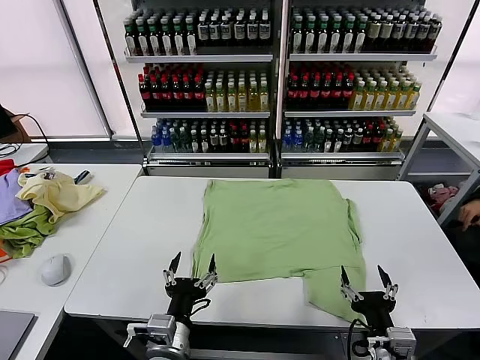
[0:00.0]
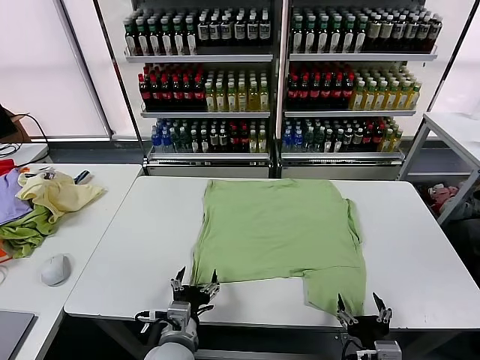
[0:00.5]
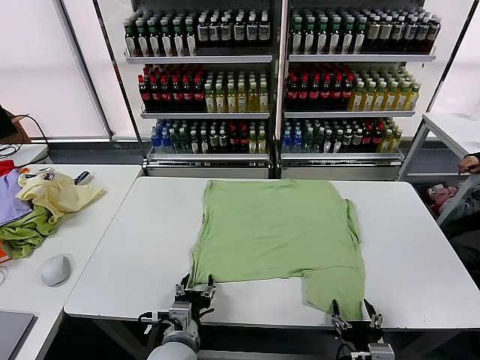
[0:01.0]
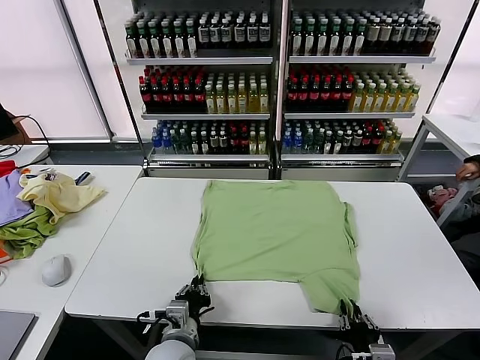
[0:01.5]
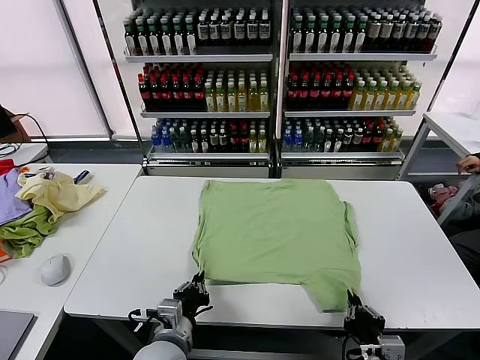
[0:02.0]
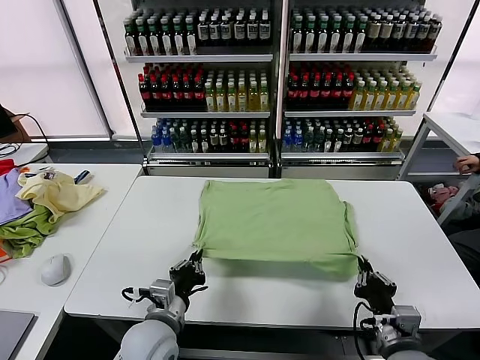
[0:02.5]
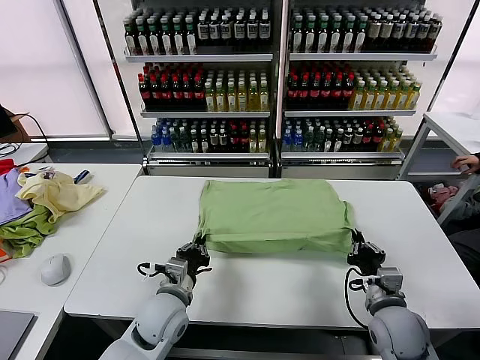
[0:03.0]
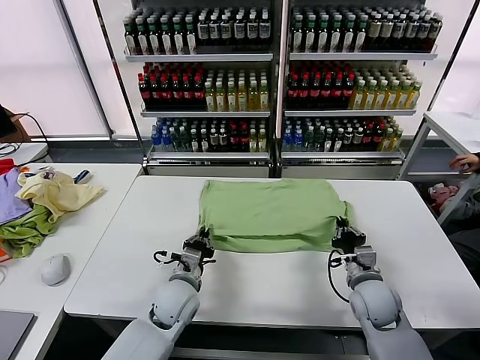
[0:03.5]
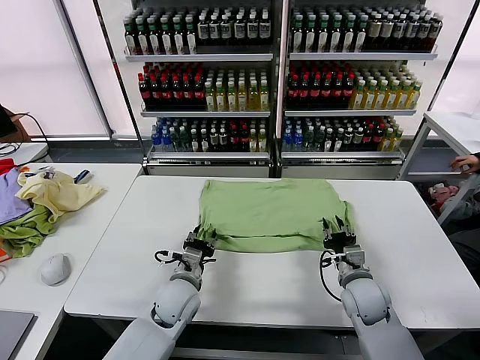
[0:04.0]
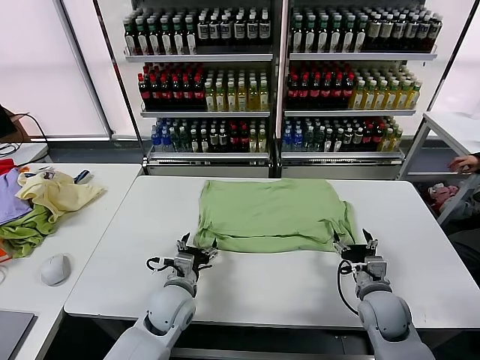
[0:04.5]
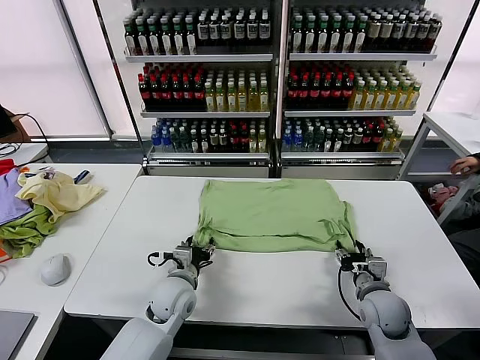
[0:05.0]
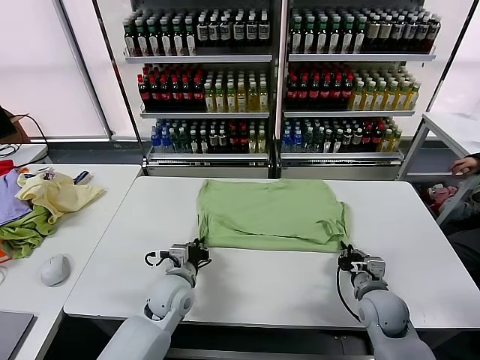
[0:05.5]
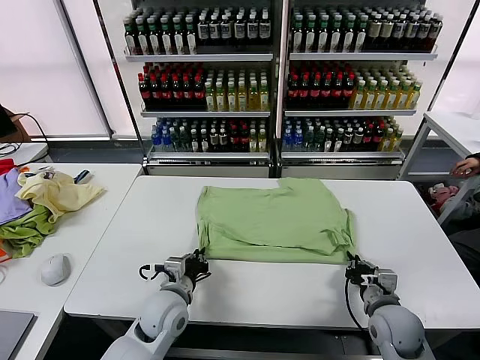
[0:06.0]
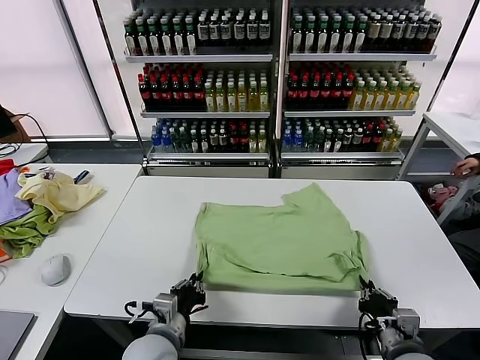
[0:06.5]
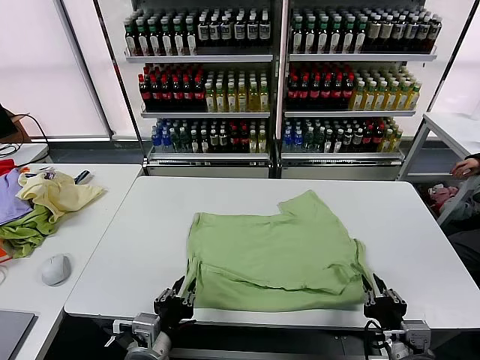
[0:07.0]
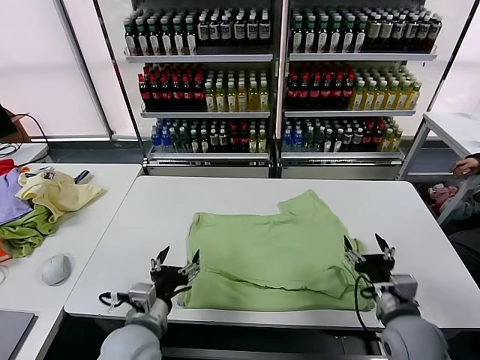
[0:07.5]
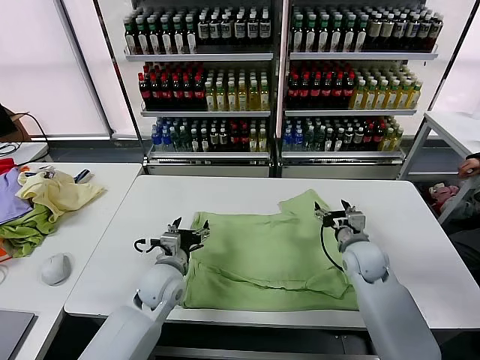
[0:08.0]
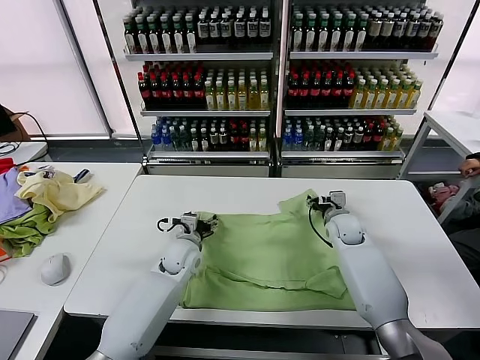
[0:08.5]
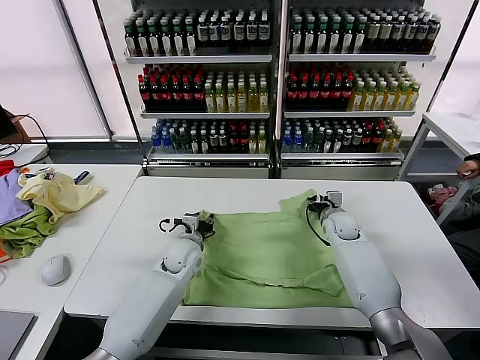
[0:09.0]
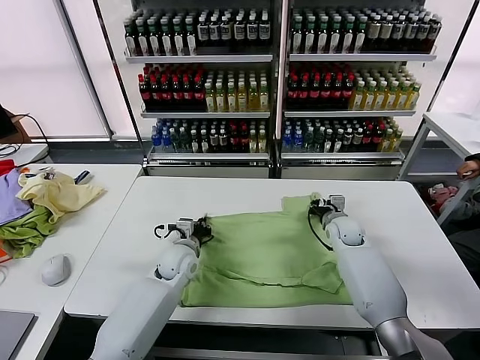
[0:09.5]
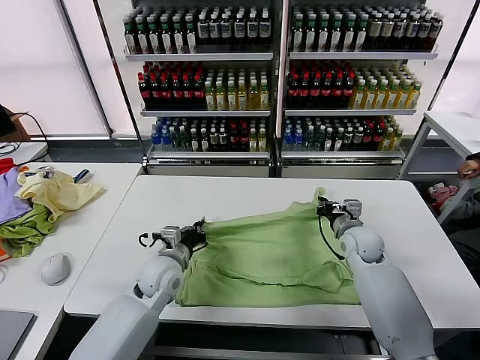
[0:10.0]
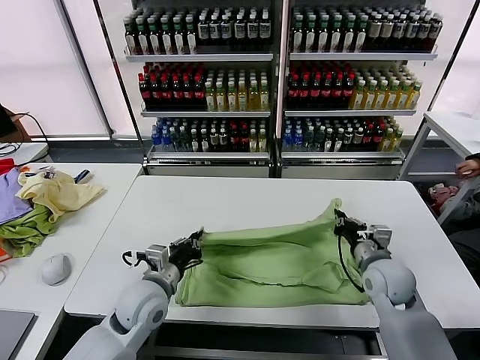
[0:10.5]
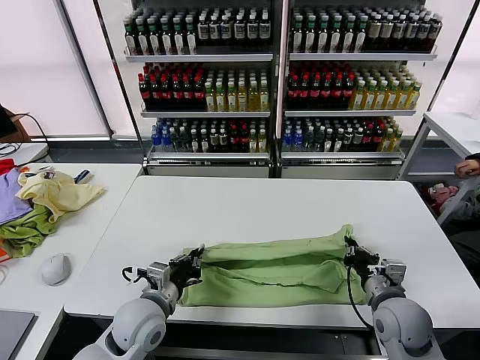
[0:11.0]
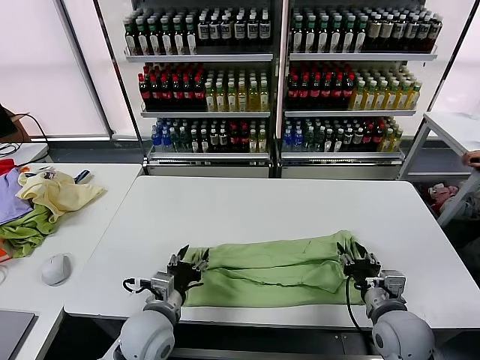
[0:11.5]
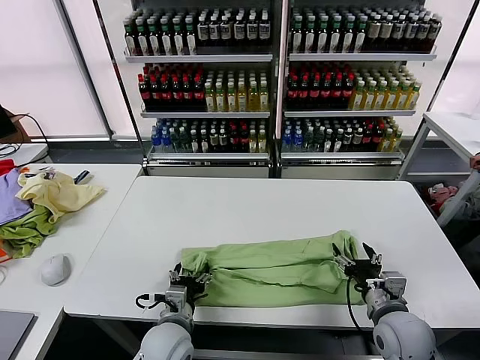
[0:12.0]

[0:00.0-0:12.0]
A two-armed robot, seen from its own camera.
Task of the whole recording: fold and organize the clothes.
Step, 0:00.0 to 0:01.5: use both grippers simultaneously to clamp the lower edge of the clothing fabric.
Step, 0:02.0 to 0:04.0: use both grippers to drag the lower edge of the fabric forward and fold it over the upper edge.
Step, 0:04.5 to 0:07.0: Drag the clothes downward with both gripper.
Step, 0:07.5 to 0:09.5: use both grippers simultaneously to clamp the upper edge of the clothing fabric.
Step, 0:10.0 to 0:11.0: use both grippers to drag the upper edge of the fabric backward and fold it over the lower edge.
0:02.0 to 0:04.0: The two grippers go roughly 15 cm forward. The left gripper opens. Meanwhile the right gripper opens its fingers.
0:04.0 to 0:06.0: The left gripper closes its fingers; the right gripper travels backward by some 10 cm, and closes up.
0:06.0 to 0:08.0: The right gripper goes roughly 20 cm forward, and opens its fingers. Meanwhile the left gripper reaches roughly 15 cm backward, then returns, and opens up.
0:08.0 to 0:10.0: The right gripper reaches about 10 cm forward, then returns, and closes up. Meanwhile the left gripper moves some 10 cm forward and comes back, and closes.
0:10.0 to 0:12.0: The two grippers go roughly 15 cm backward. The left gripper opens its fingers. Meanwhile the right gripper opens.

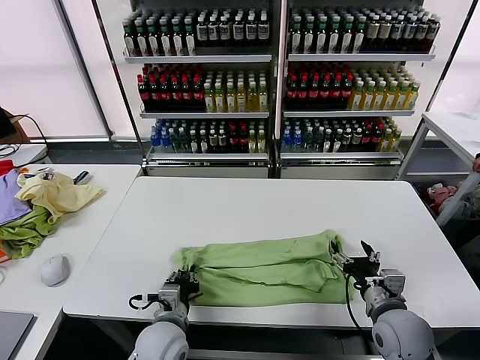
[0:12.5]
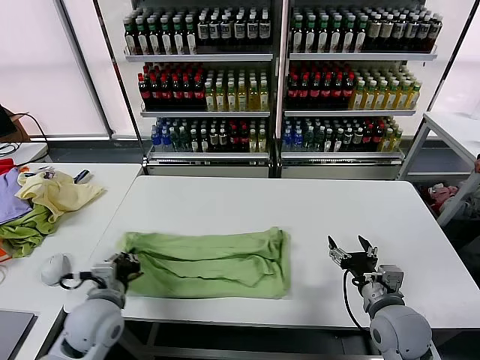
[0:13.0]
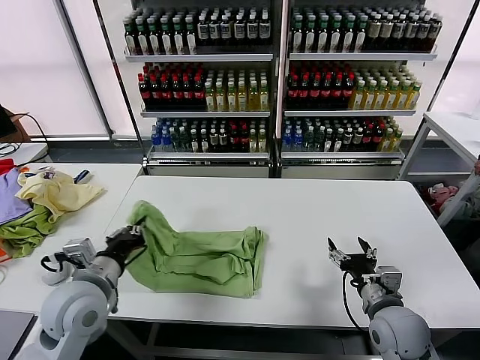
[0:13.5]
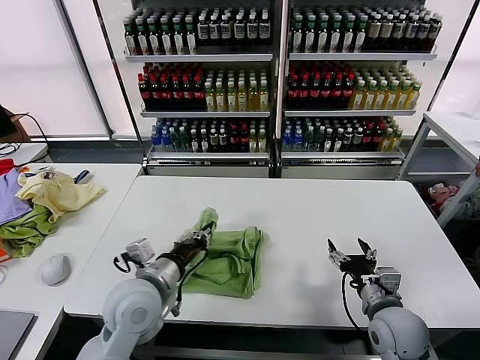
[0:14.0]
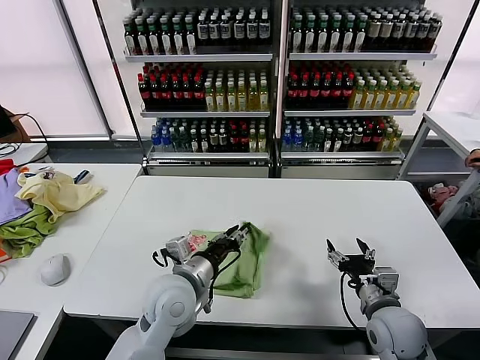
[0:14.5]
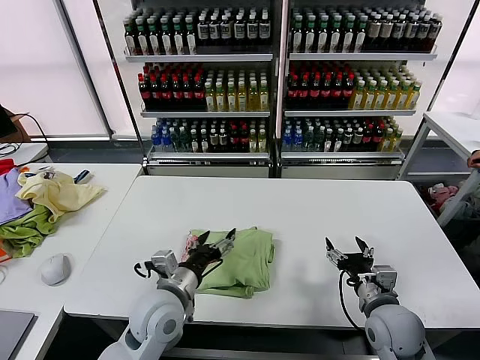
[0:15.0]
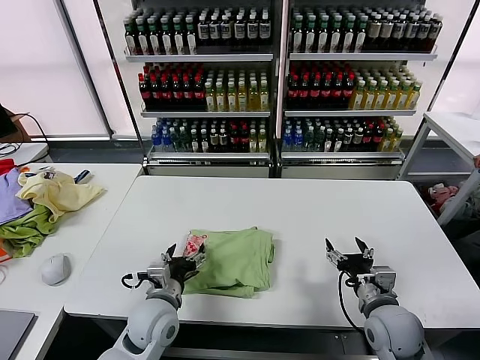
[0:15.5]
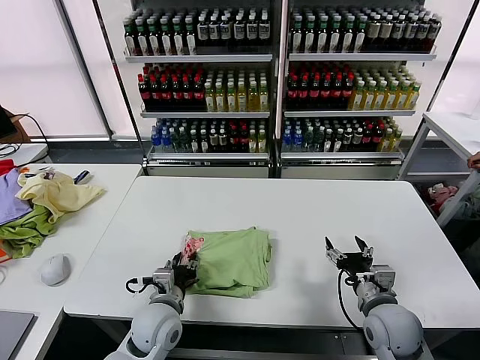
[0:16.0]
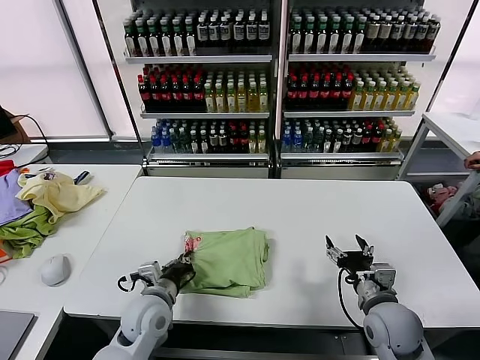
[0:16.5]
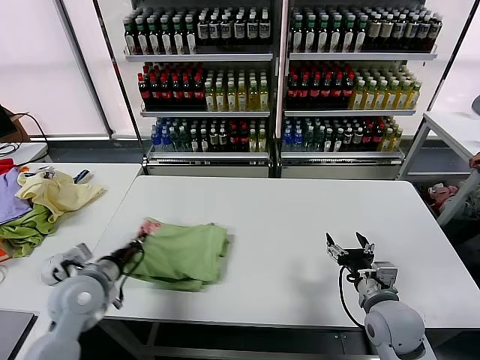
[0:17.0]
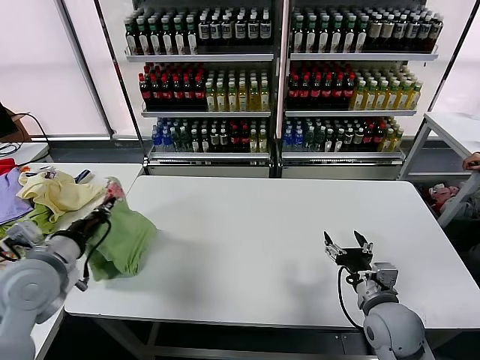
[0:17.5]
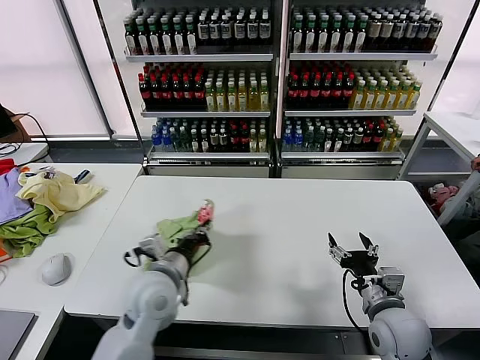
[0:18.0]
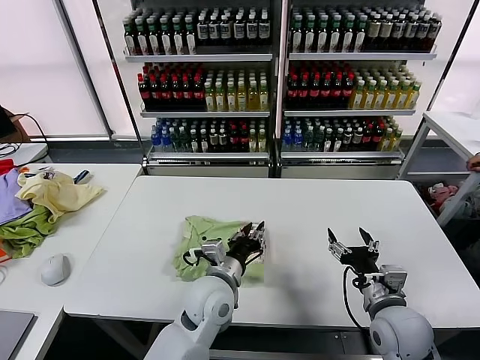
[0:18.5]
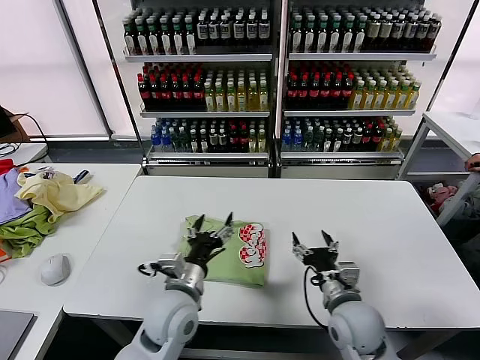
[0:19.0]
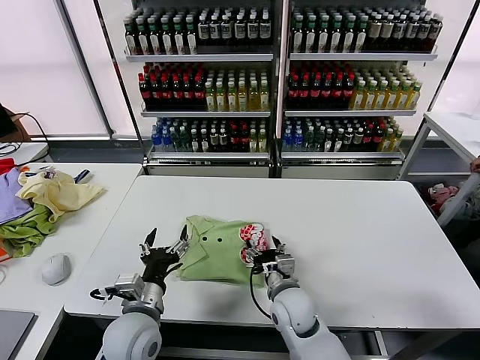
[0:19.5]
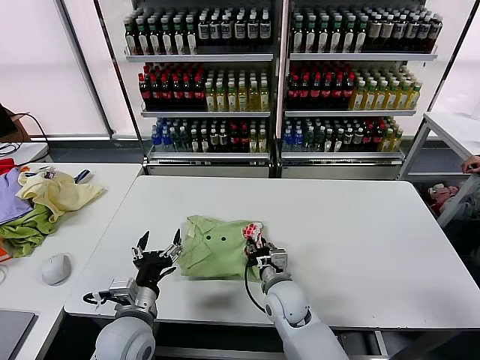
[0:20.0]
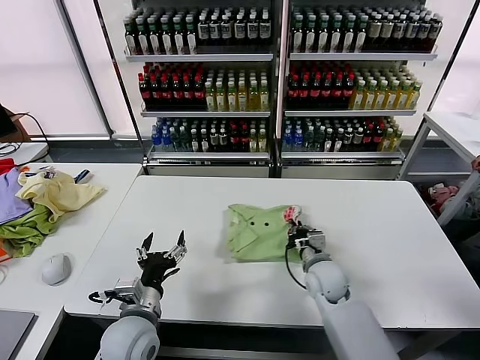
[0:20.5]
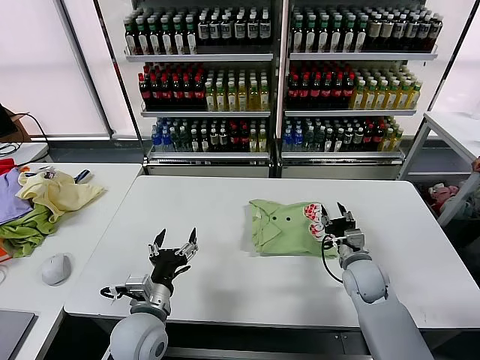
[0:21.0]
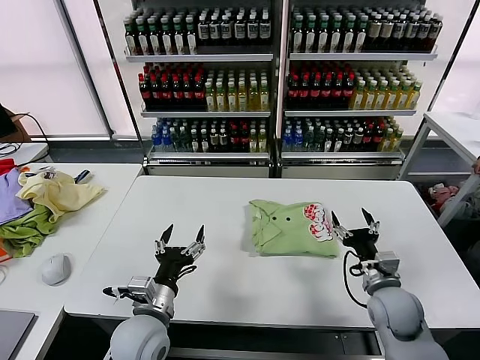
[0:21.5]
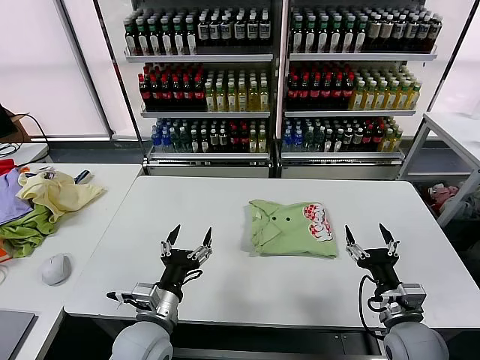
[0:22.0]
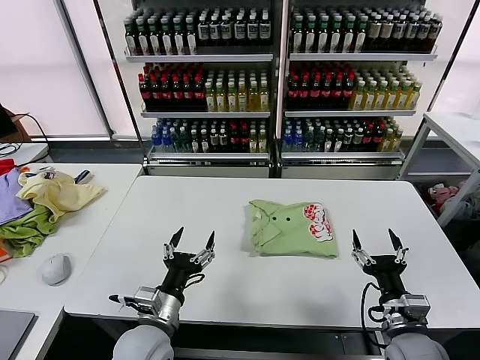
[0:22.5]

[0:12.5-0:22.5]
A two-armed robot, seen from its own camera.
Task of the whole recording: fold and organize the clothes.
Step, 0:13.0 to 0:14.5: use the left gripper to drag the left edge of the fabric to the left and folds it over the right edge.
Step, 0:15.0 to 0:18.5: Flip the folded clothes over with left gripper.
Step, 0:19.0 to 0:20.5: Drag the clothes to the center of the table.
0:12.5 to 0:14.5: The left gripper travels upward and forward by about 10 cm, and moves roughly 15 cm to the left and comes back.
0:14.5 to 0:16.5: The left gripper moves downward and to the left, about 10 cm, and closes.
0:16.5 to 0:18.5: The left gripper goes roughly 15 cm to the right and upward.
0:18.5 to 0:20.5: The left gripper goes about 15 cm to the left and backward, and opens its fingers. The right gripper travels forward, to the left and downward by about 20 cm, and closes its fingers.
0:20.5 to 0:22.5: The right gripper shifts roughly 20 cm backward and to the right, and opens up.
